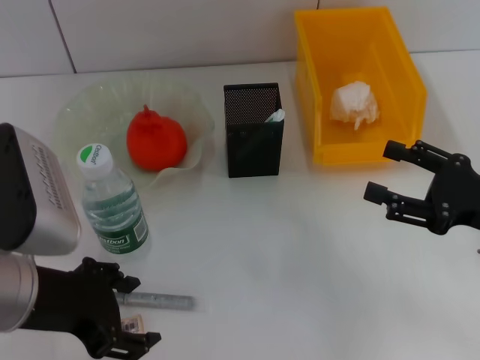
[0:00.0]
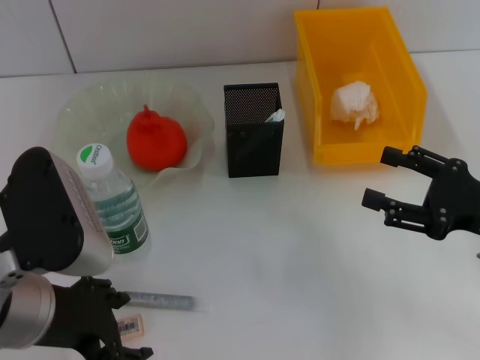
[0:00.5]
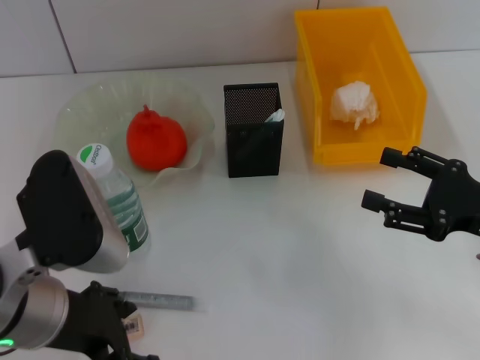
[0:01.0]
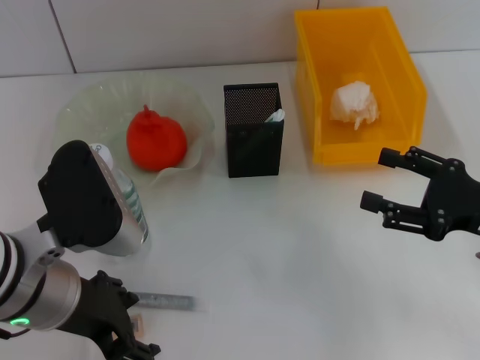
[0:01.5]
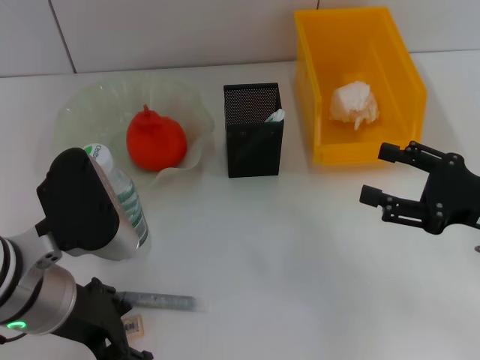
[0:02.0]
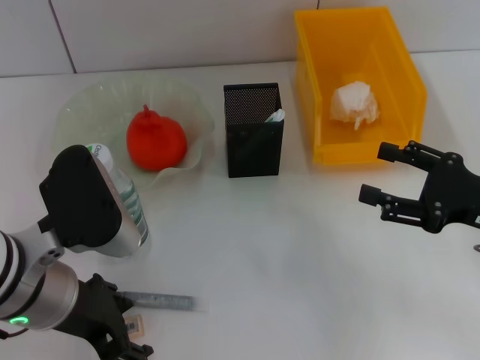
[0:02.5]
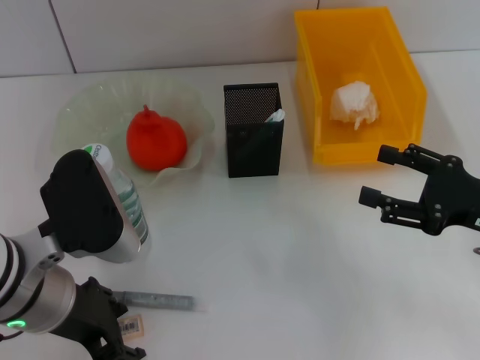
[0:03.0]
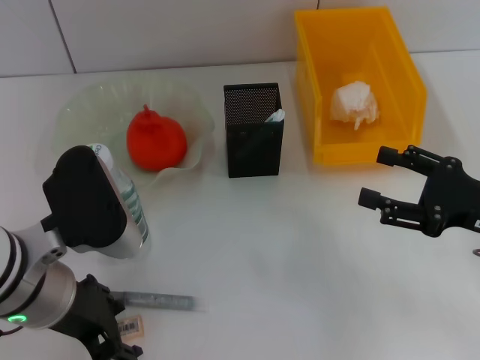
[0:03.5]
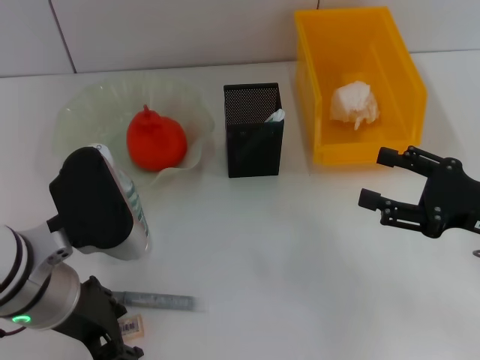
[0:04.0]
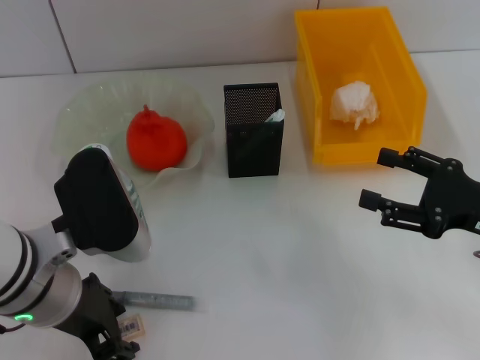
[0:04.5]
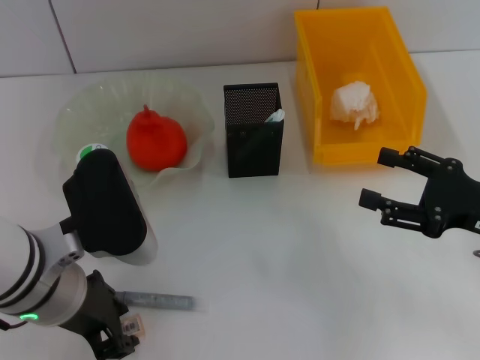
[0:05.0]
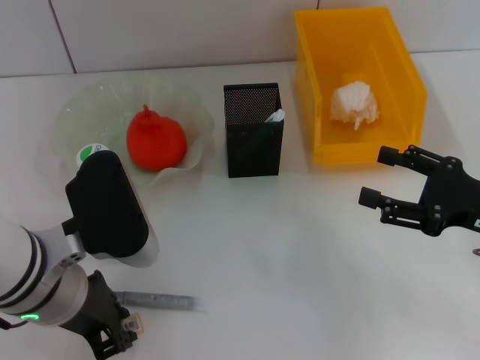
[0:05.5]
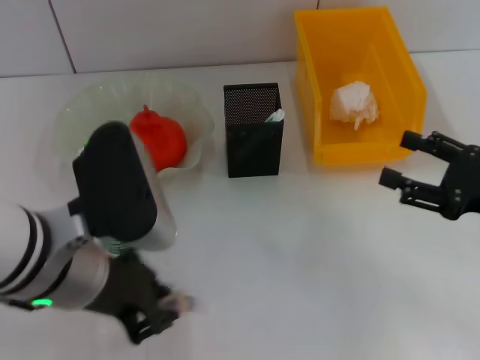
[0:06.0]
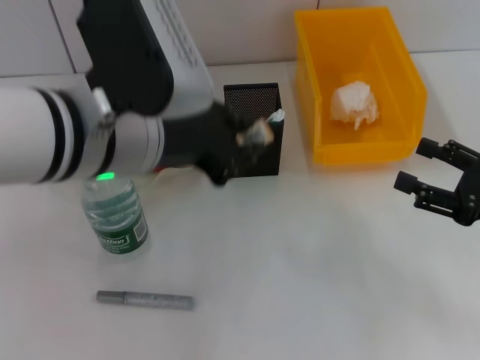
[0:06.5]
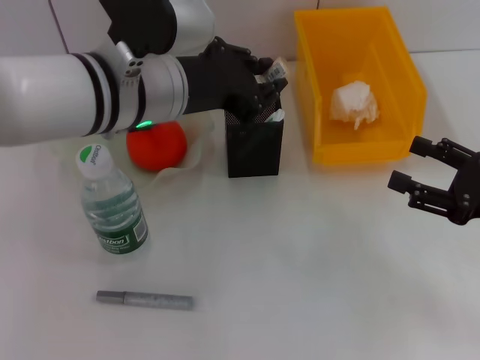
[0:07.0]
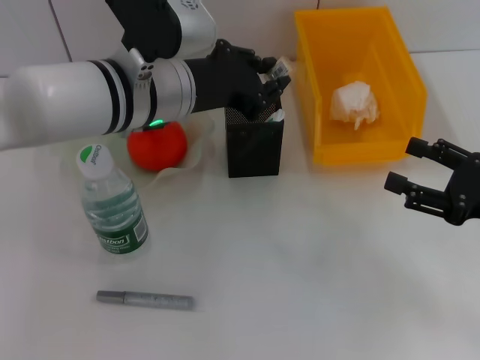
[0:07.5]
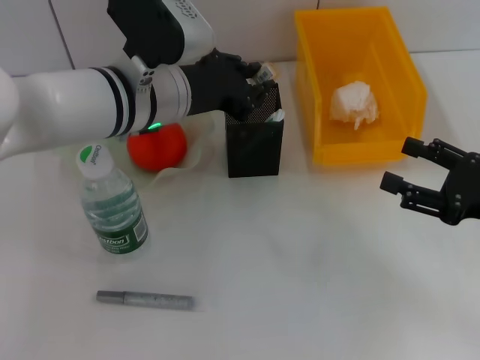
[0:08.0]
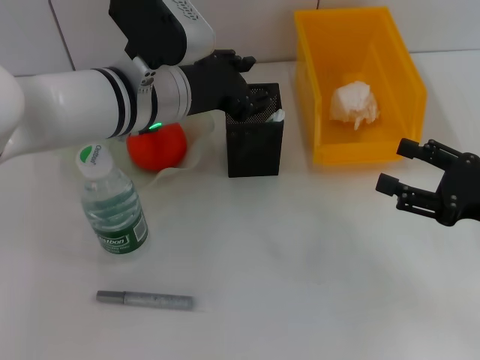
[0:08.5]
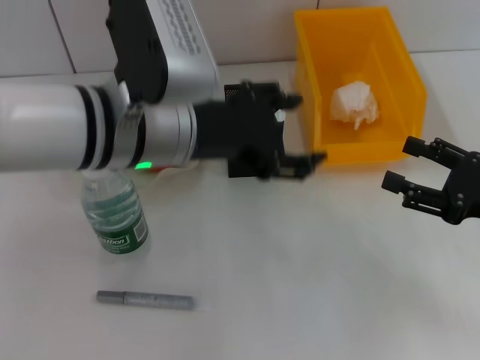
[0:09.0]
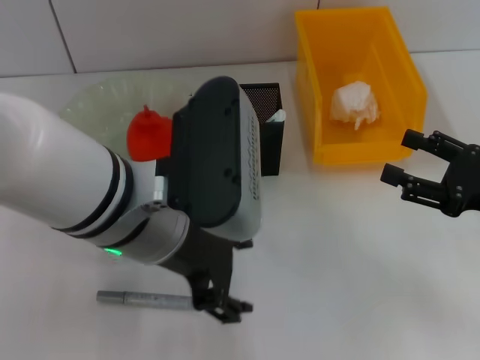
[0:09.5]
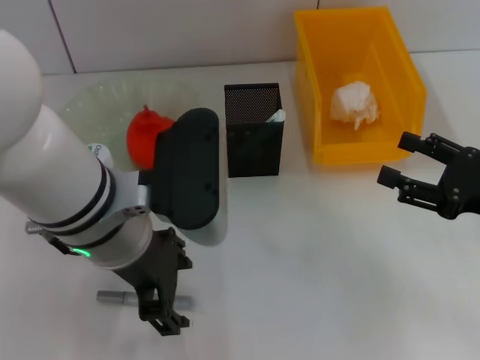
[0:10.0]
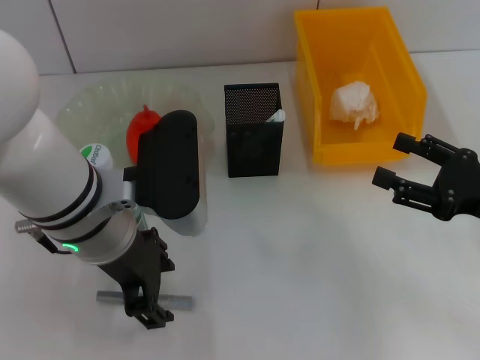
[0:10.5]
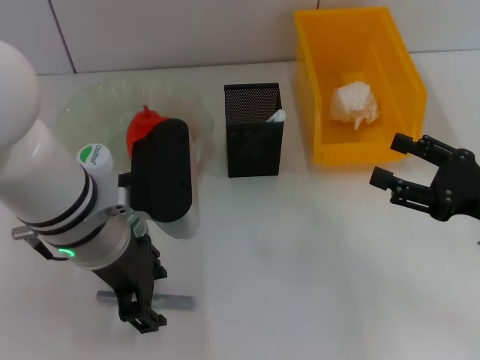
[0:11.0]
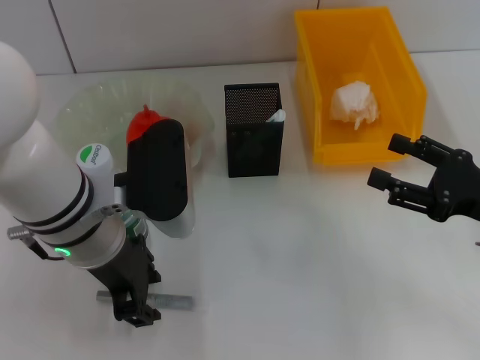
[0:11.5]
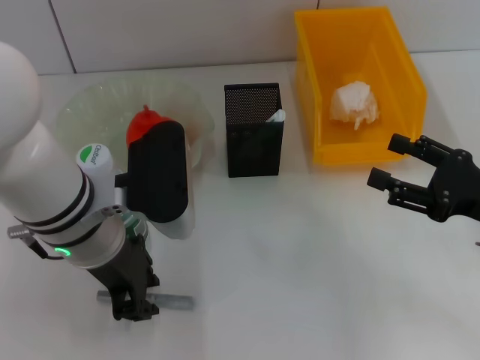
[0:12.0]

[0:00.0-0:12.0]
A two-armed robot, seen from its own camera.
Step, 0:00.0 to 0:05.0: Grab the eraser with the left hand.
Step, 0:05.5 to 0:08.0: Place the eraser into the pen holder with the left hand.
0:00.0 to 0:02.0: There are only small adjustments of the grippers.
0:02.0 to 0:04.0: Both grippers stay put.
0:04.0 to 0:06.0: The left gripper closes.
0:06.0 to 0:08.0: The left gripper heads forward and to the right, covering about 15 cm.
0:08.0 to 0:10.0: The left gripper shifts roughly 10 cm backward, and opens.
0:10.0 to 0:12.0: The left gripper closes.

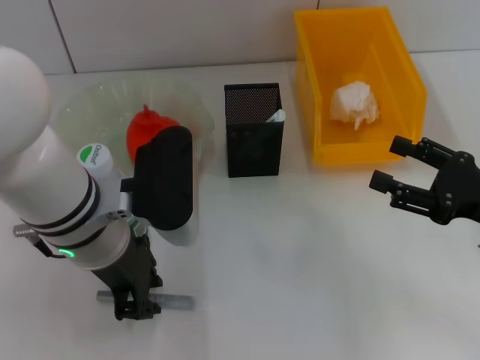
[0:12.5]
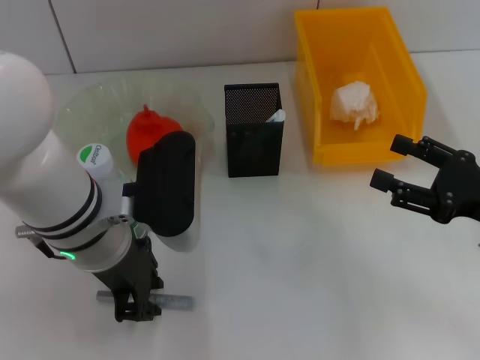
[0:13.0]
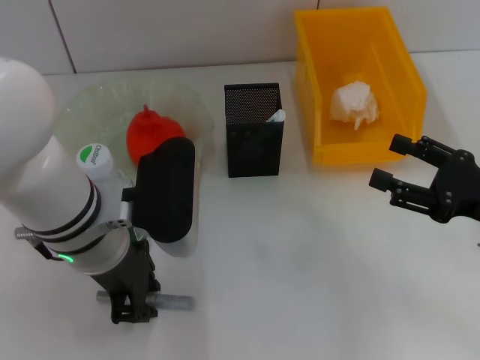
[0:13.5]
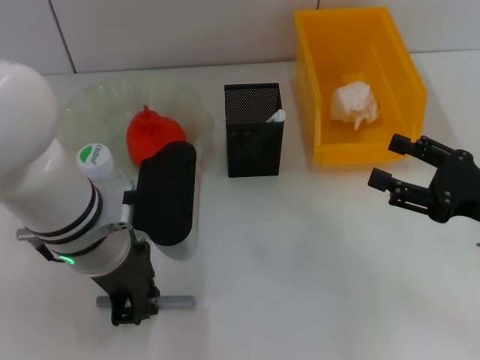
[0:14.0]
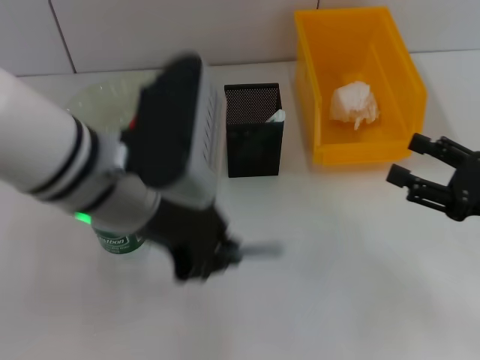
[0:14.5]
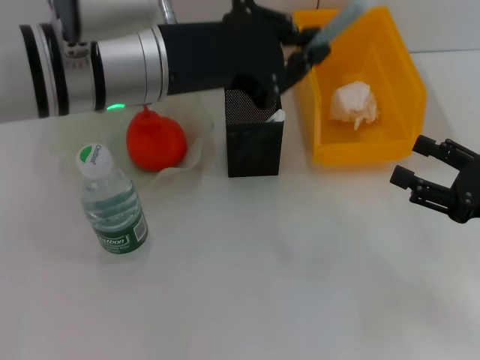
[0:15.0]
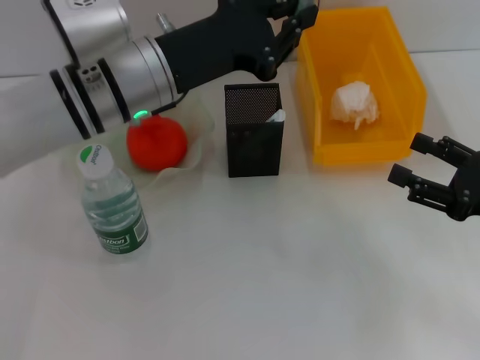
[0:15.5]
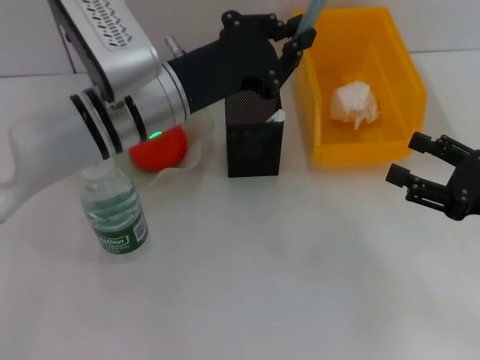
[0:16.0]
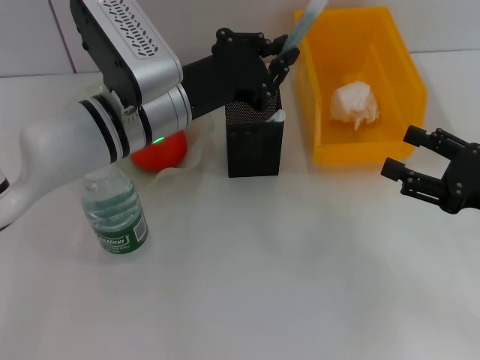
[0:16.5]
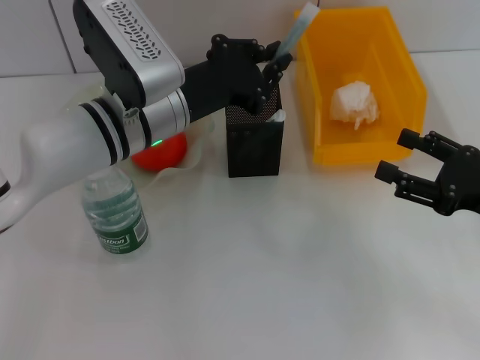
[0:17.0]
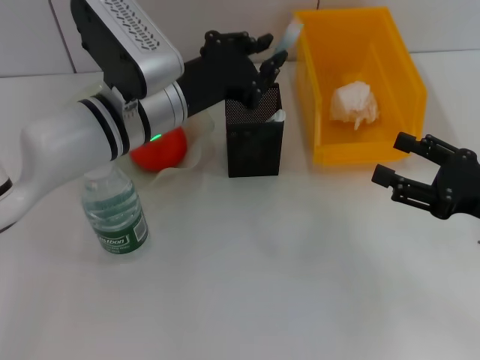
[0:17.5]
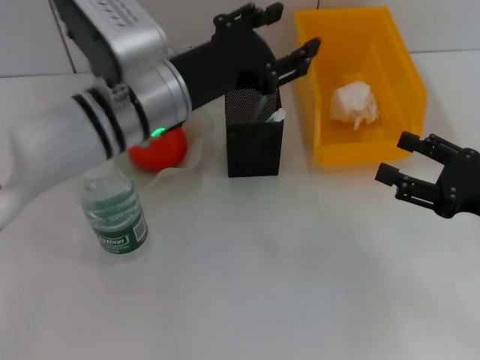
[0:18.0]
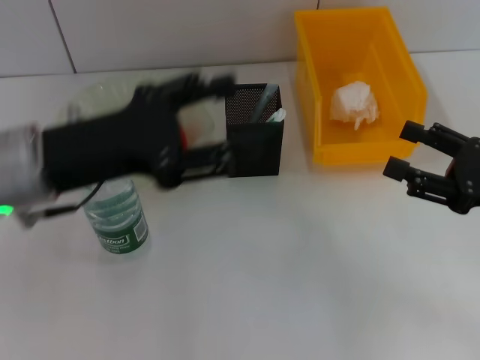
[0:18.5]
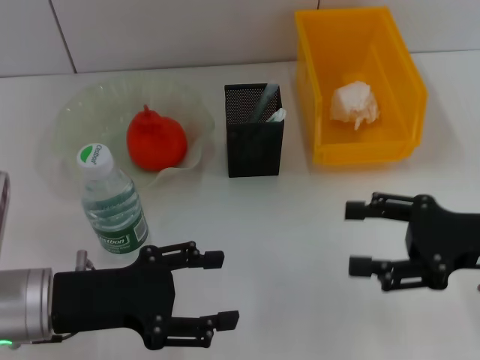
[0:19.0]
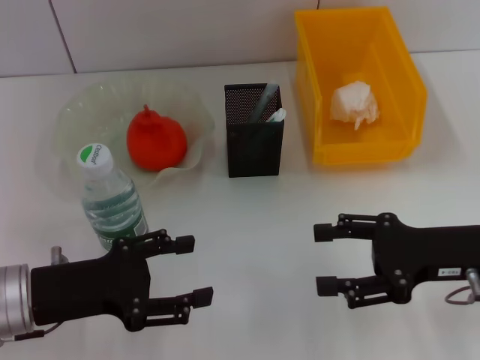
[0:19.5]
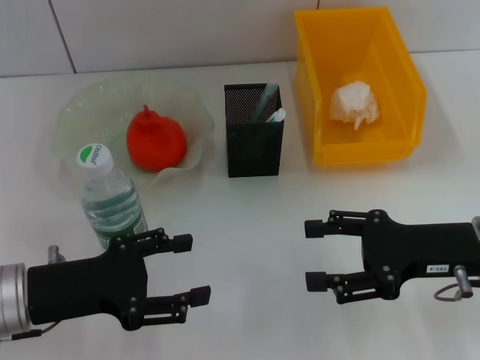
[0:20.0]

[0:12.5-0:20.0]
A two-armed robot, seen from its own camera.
Step, 0:14.5 to 0:17.5: Place the gray glue into the pen holder with the left hand.
0:12.5 to 0:14.5: There are only small adjustments of the grippers.
0:14.5 to 0:16.5: The left gripper goes some 10 cm forward.
0:16.5 to 0:18.0: The left gripper opens.
0:18.0 to 0:20.0: The left gripper shifts roughly 20 cm to the left, backward and downward, and opens up; the right gripper heads to the left, covering some 5 cm.
